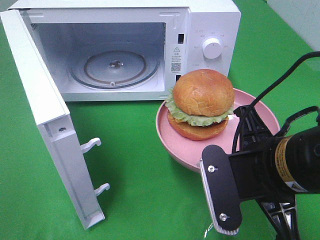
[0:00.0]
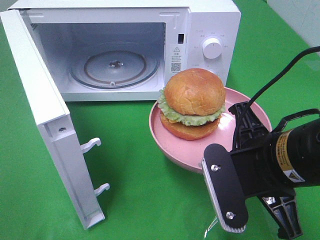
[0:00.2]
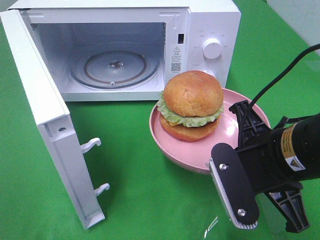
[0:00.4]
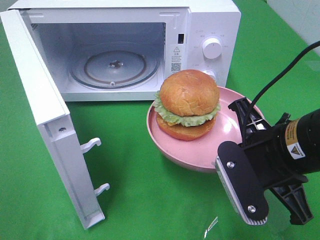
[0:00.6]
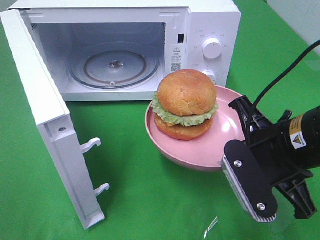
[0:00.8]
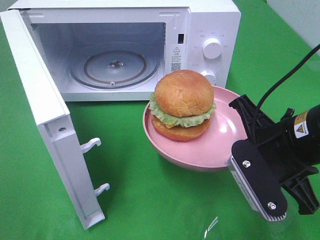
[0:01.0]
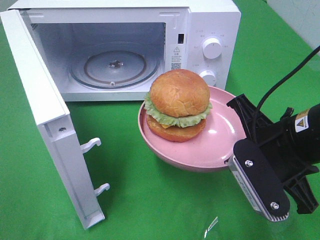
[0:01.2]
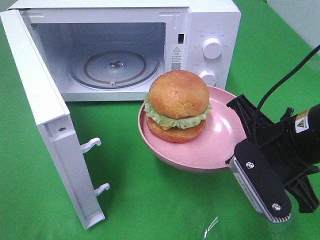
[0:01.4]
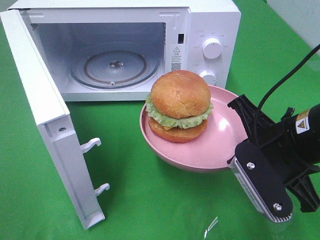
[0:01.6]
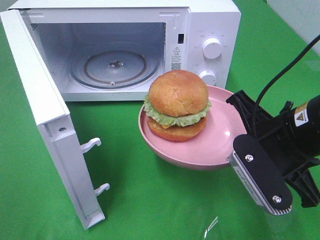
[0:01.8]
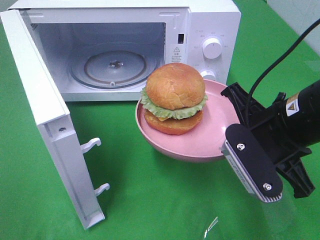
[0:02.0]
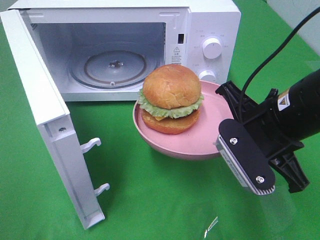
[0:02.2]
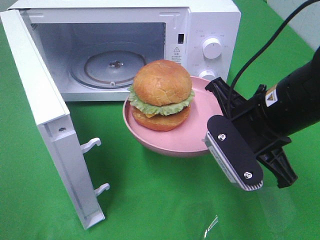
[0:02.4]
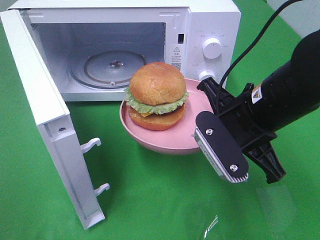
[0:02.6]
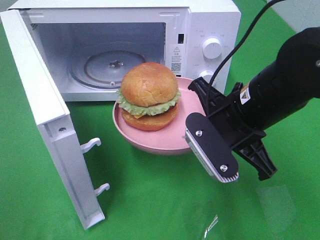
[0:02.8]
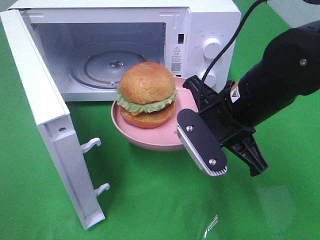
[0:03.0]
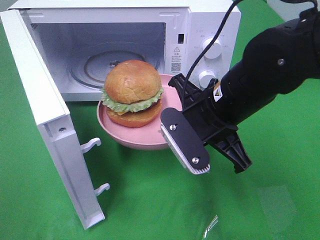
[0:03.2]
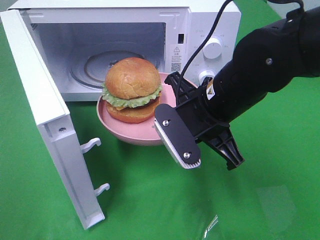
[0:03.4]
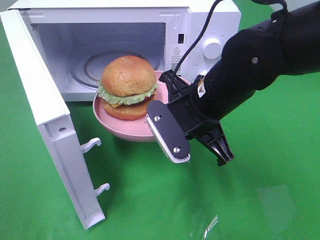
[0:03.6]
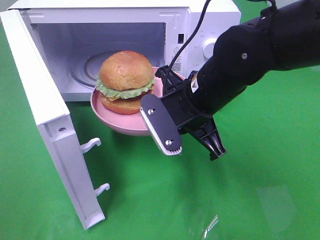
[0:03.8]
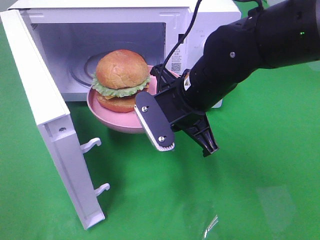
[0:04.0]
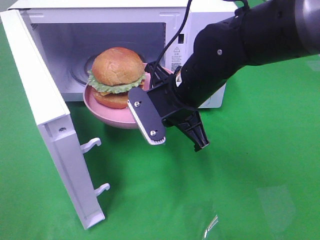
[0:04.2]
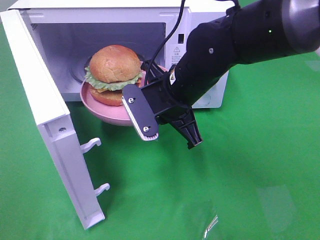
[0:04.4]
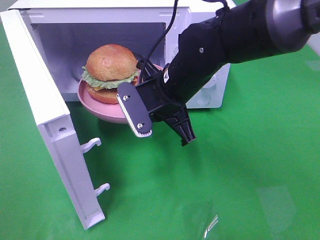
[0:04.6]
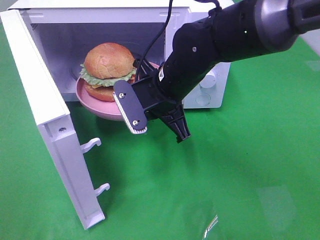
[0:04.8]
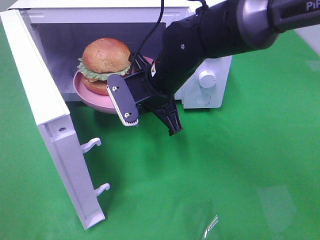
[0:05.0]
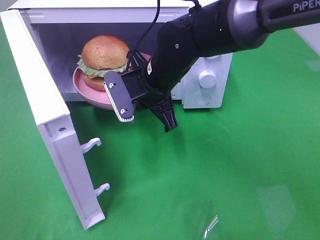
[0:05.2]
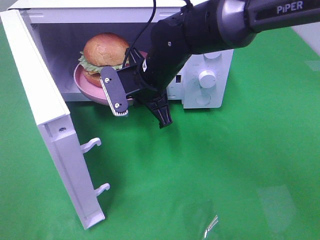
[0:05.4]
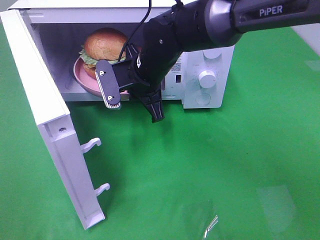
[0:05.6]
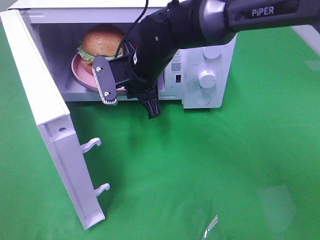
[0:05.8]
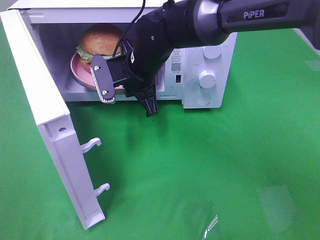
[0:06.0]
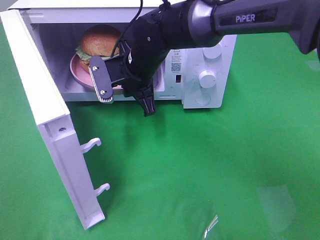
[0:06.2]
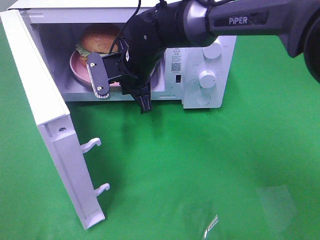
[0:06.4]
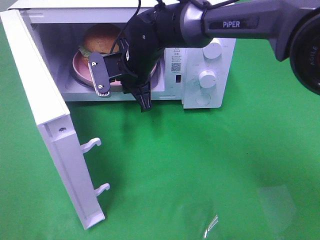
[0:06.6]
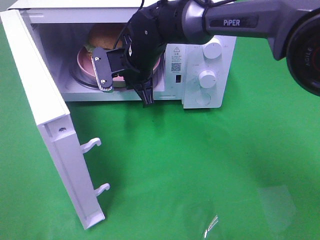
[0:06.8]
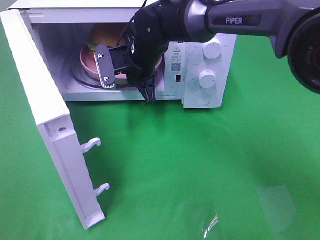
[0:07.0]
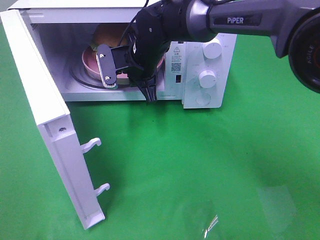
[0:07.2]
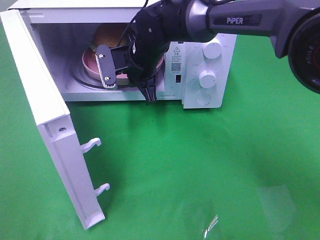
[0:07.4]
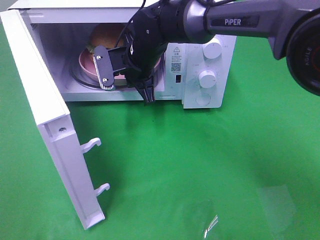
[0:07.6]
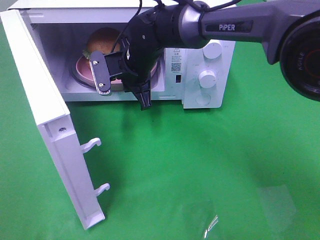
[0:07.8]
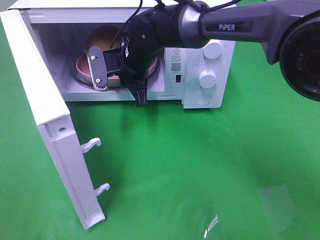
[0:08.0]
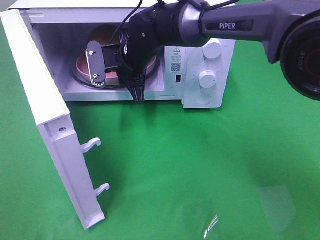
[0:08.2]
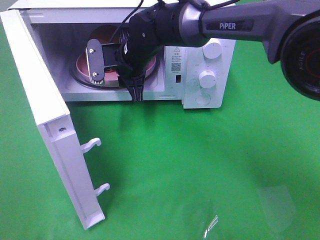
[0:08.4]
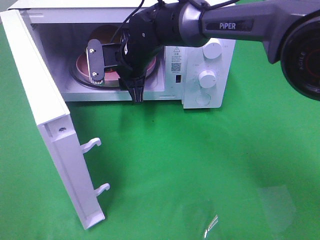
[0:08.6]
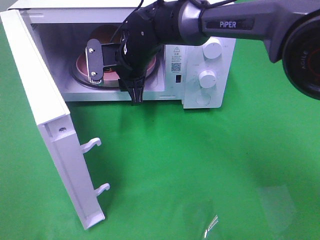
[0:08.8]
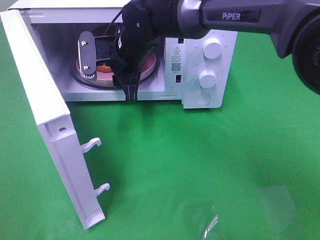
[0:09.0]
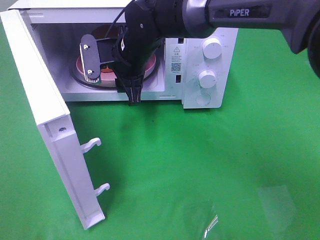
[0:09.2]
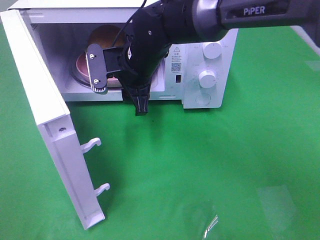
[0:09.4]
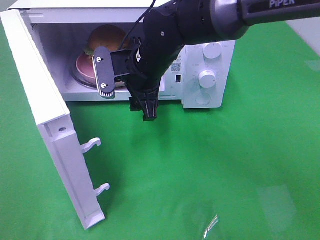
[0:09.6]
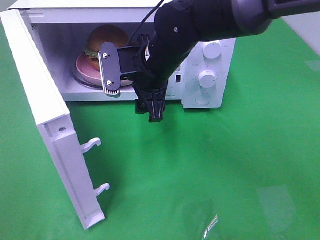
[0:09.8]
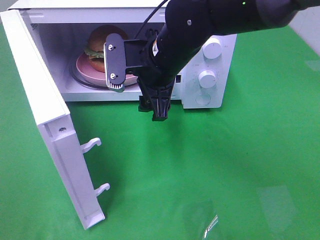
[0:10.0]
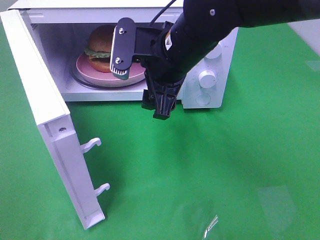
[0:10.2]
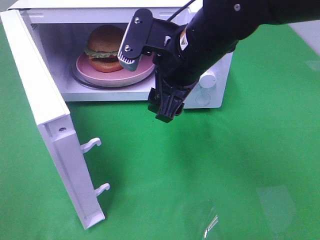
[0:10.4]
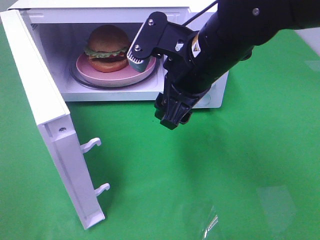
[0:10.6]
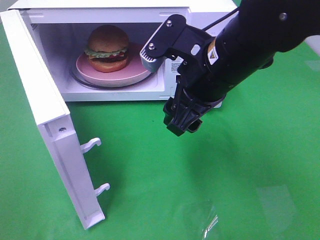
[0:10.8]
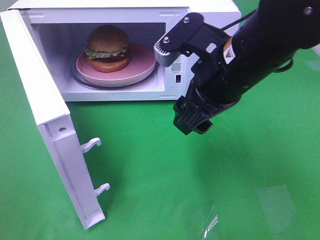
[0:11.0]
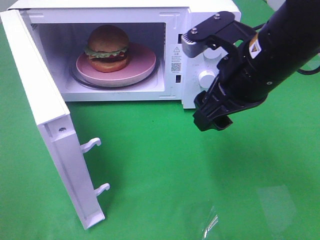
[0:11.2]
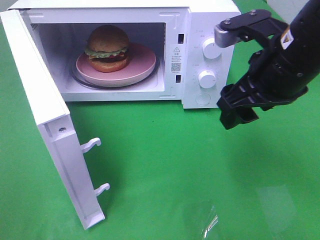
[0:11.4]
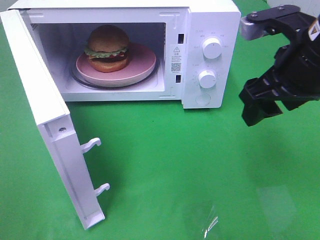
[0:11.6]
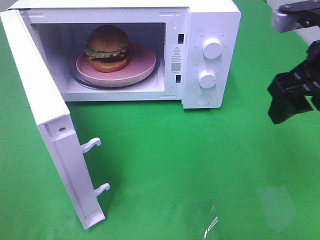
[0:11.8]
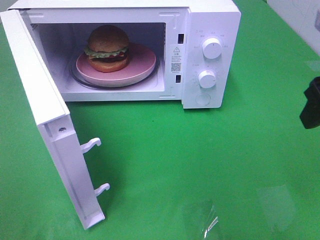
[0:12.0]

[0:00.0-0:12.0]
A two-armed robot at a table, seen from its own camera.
Task of the whole recording: Heat the burger.
Step, 0:00.0 to 0:09.0: Right hand: place the plate in the microwave.
0:00.0 to 0:01.6: The right gripper moves approximately 5 cm.
0:01.6 to 0:03.0: The right gripper is displaced to the left and forward by roughly 10 cm.
0:03.0 to 0:04.4: The right gripper goes approximately 10 cm to the left and forward.
0:04.4 to 0:06.0: The right gripper travels forward and to the left by about 10 cm.
0:06.0 to 0:07.6: The grippers make only small movements.
0:07.6 to 0:09.0: The right gripper opens up.
0:09.0 to 0:10.4: The right gripper shifts some 15 cm backward, to the right and upward.
0:10.4 to 0:12.0: The right gripper is displaced to the right and backward by about 20 cm.

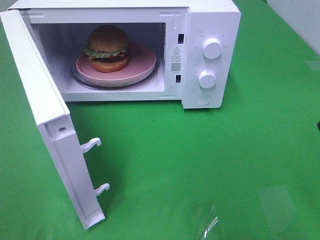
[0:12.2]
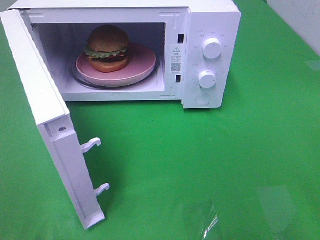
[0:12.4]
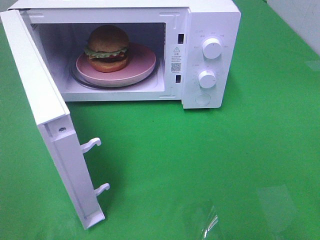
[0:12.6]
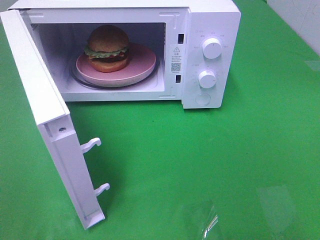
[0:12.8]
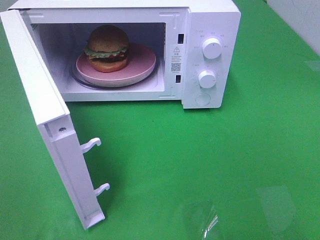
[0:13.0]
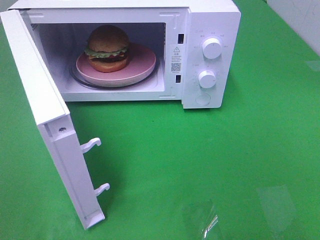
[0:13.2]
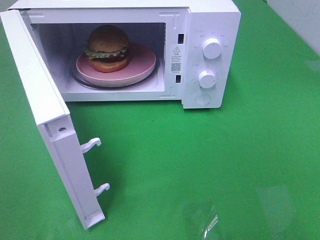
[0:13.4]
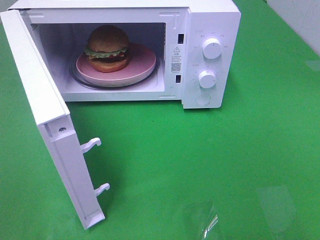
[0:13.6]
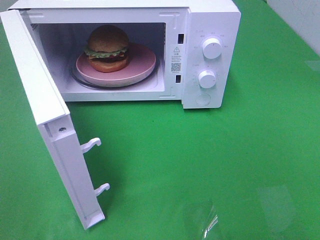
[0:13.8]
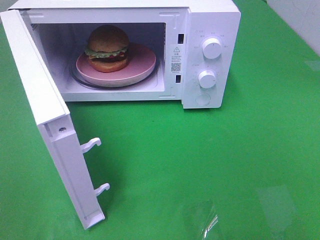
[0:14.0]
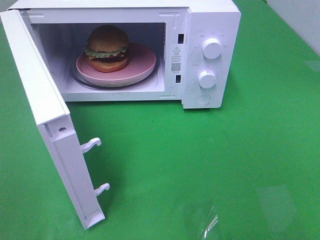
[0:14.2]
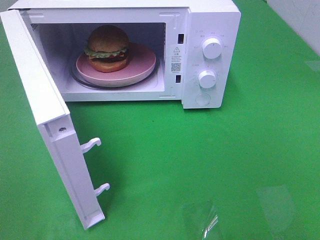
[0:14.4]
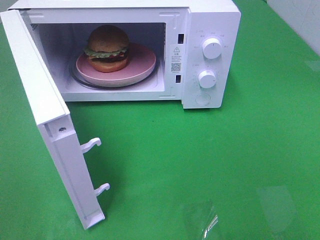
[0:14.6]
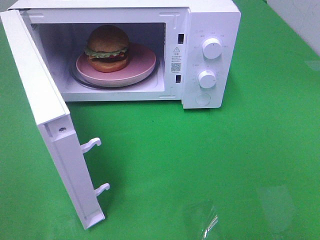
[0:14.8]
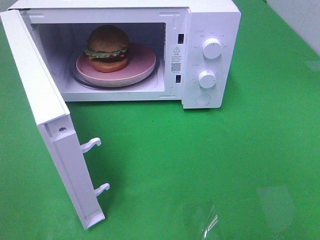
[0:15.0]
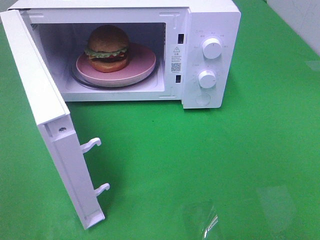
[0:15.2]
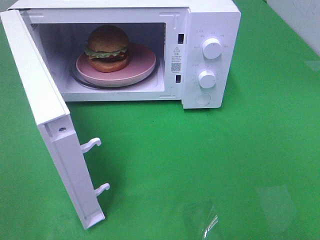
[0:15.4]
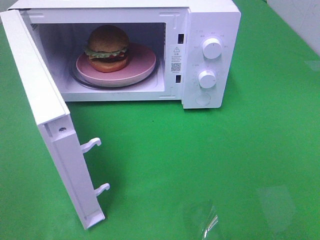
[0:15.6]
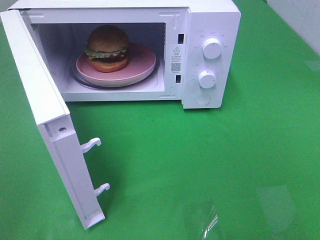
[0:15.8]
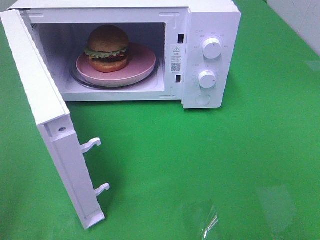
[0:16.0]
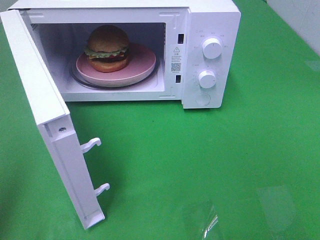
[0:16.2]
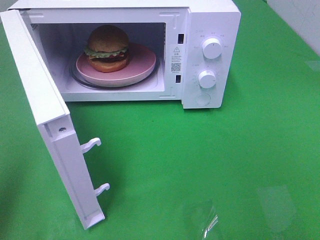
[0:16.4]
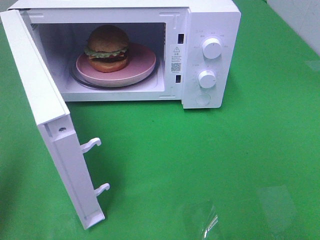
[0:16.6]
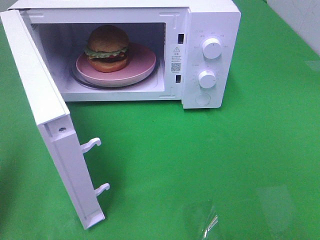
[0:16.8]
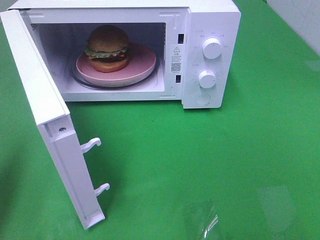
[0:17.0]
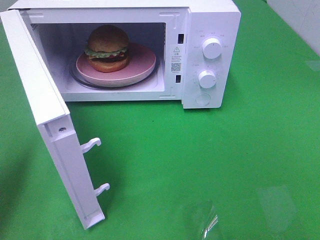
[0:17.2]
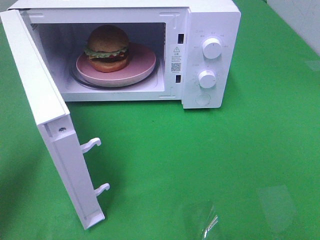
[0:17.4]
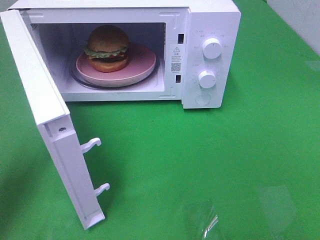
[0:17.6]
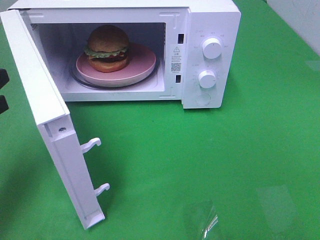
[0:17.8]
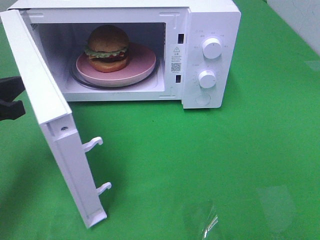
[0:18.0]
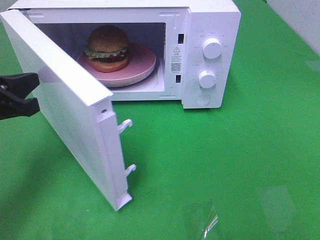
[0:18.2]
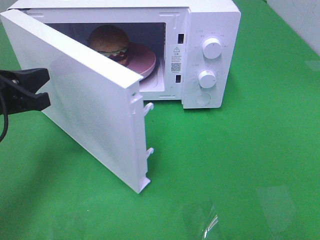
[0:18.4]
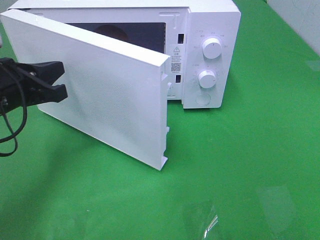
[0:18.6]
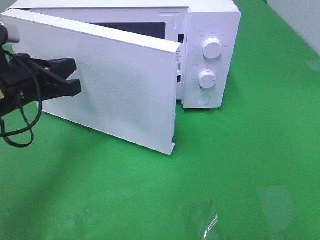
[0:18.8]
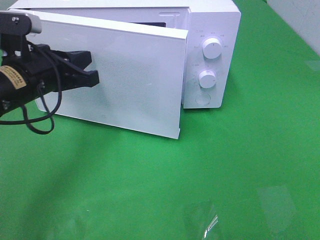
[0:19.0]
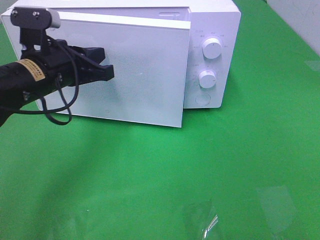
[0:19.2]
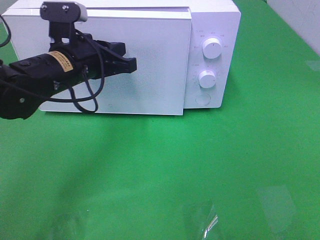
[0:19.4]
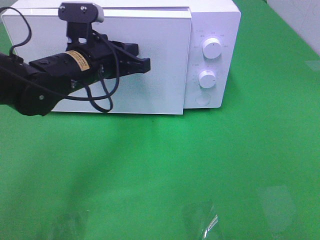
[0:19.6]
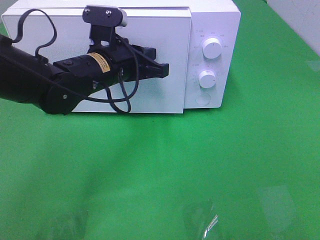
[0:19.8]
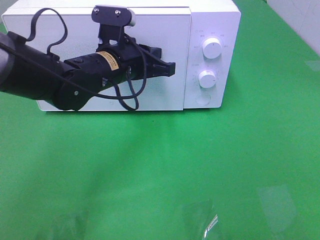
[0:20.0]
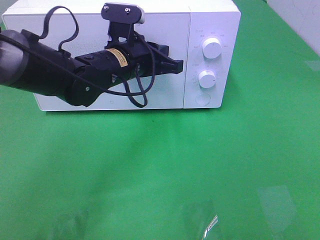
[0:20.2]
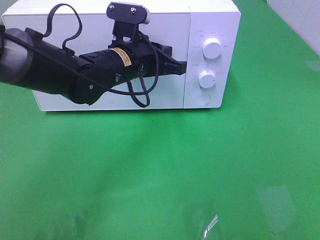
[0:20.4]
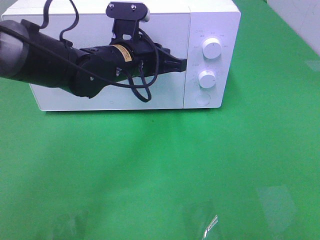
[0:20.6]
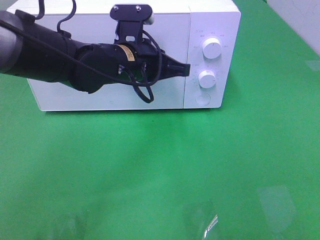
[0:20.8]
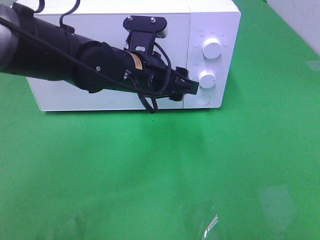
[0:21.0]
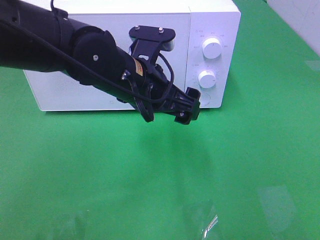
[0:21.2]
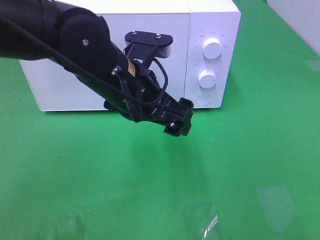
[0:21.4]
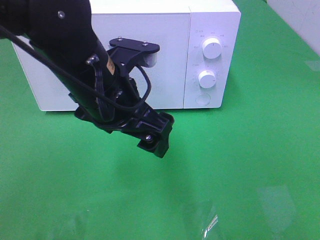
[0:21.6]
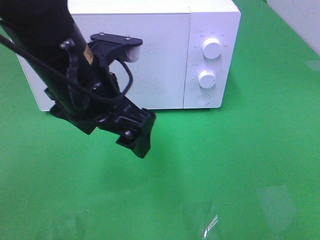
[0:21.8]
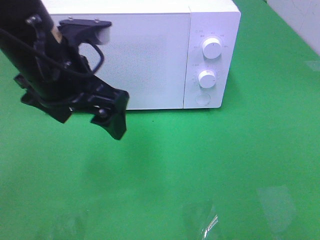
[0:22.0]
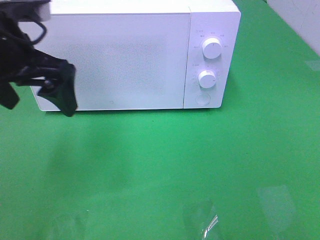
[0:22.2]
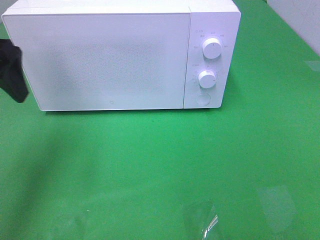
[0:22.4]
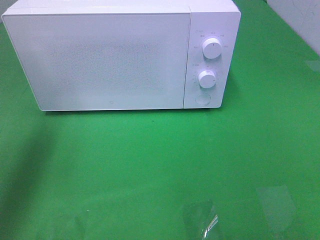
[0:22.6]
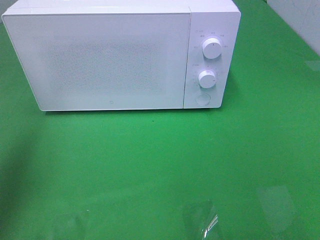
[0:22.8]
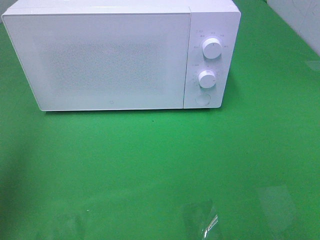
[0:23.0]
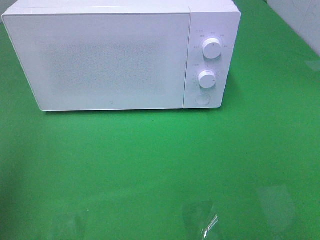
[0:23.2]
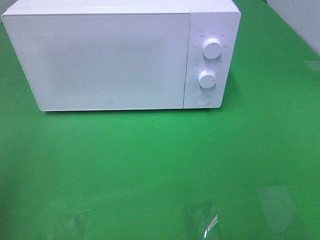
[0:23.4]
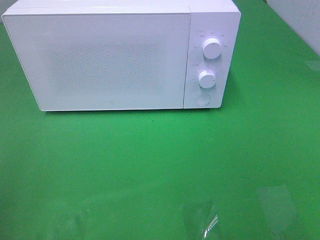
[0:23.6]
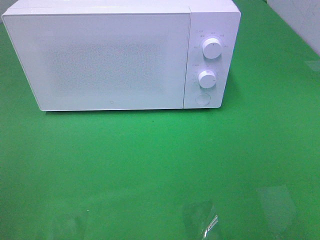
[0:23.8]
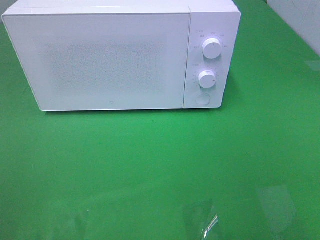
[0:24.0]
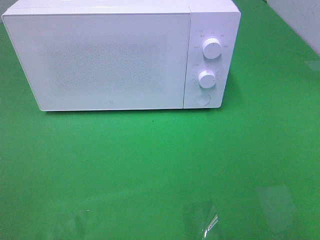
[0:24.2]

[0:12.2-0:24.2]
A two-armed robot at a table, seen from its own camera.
Task of the whole recording: Heat the burger.
Step, 0:12.2 to 0:21.0: Left hand: close the microwave door.
0:13.8 to 0:15.2: Both grippers stay about where they are.
0:15.2 to 0:16.6: The left gripper shifts roughly 15 cm forward, and closes.
0:16.6 to 0:18.2: The left gripper is displaced forward, downward and to the right by about 15 cm.
0:18.2 to 0:19.8: The left gripper heads to the right and forward, covering about 20 cm.
0:19.8 to 0:21.2: The left gripper heads backward, covering roughly 5 cm, and opens.
0:21.2 to 0:22.6: The left gripper heads to the left and upward, covering approximately 30 cm.
0:22.6 to 0:24.2: The left gripper moves backward, about 25 cm.
